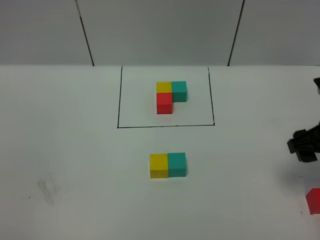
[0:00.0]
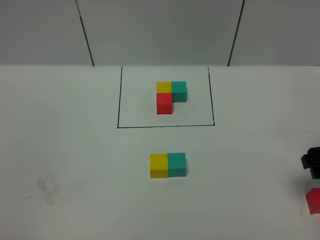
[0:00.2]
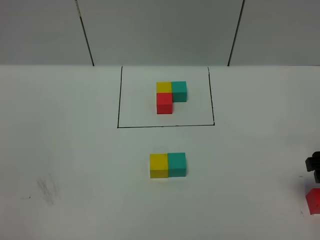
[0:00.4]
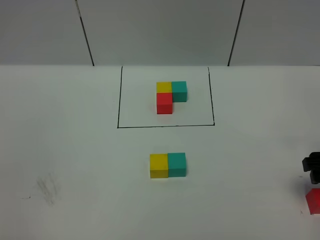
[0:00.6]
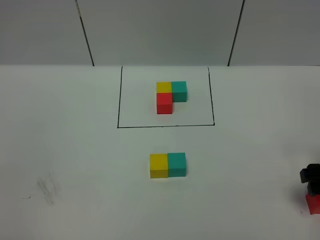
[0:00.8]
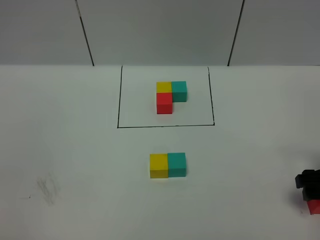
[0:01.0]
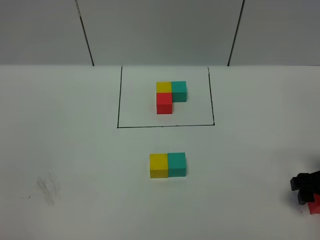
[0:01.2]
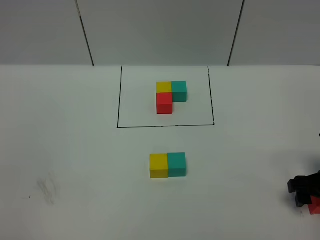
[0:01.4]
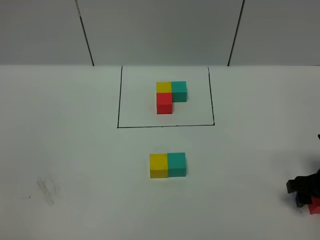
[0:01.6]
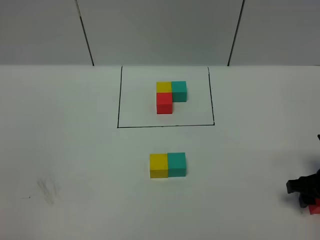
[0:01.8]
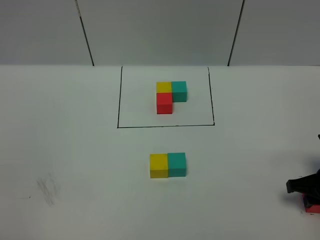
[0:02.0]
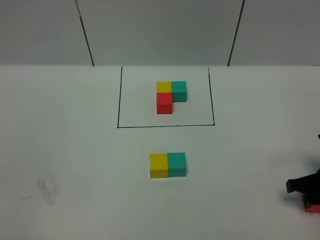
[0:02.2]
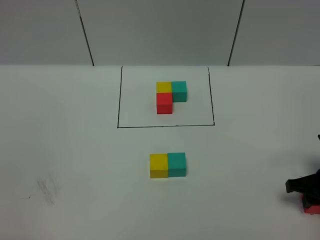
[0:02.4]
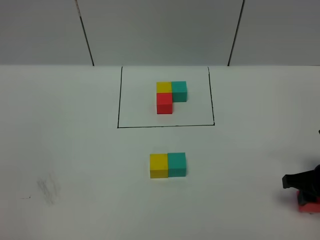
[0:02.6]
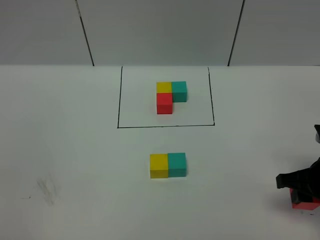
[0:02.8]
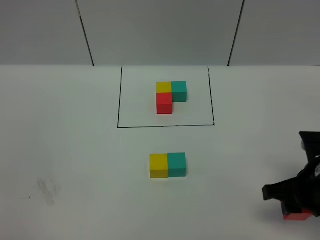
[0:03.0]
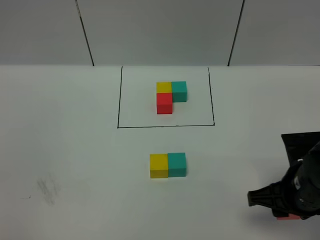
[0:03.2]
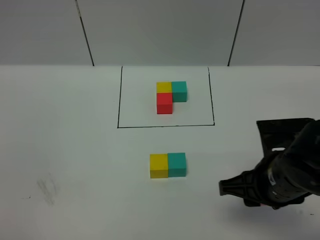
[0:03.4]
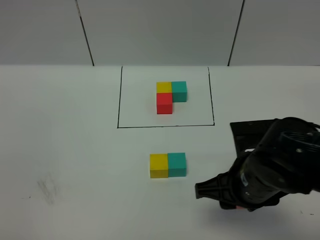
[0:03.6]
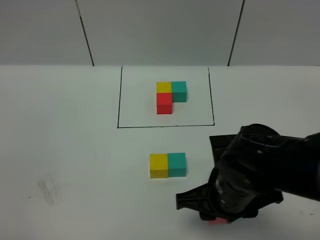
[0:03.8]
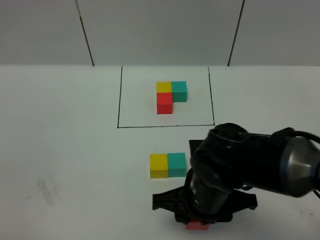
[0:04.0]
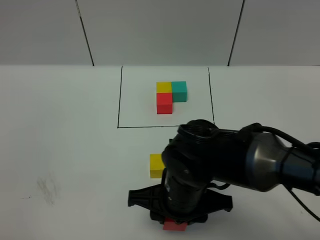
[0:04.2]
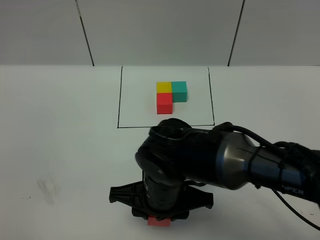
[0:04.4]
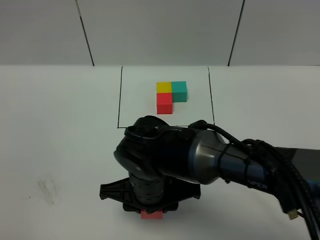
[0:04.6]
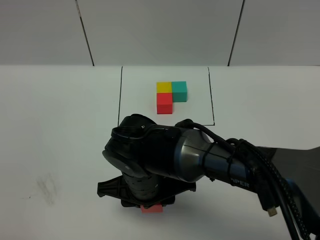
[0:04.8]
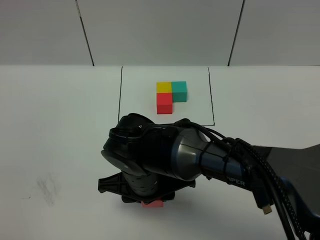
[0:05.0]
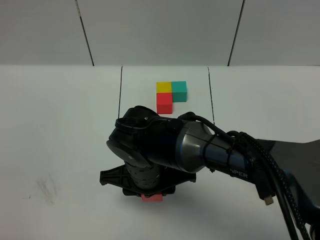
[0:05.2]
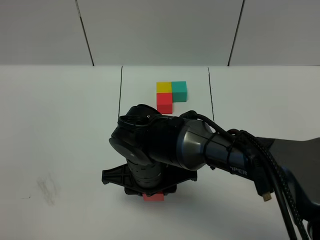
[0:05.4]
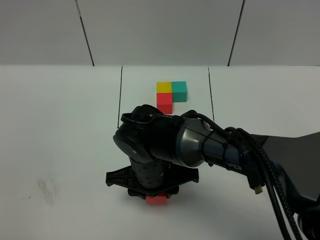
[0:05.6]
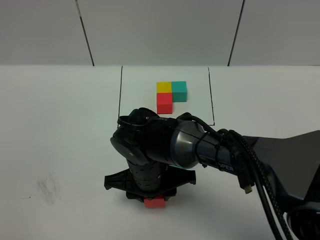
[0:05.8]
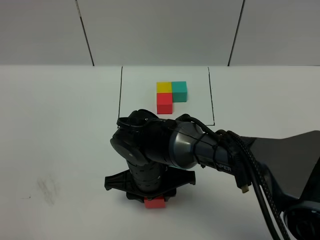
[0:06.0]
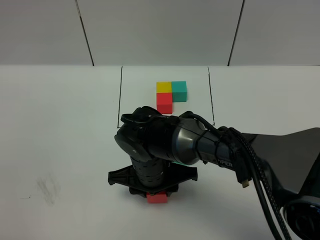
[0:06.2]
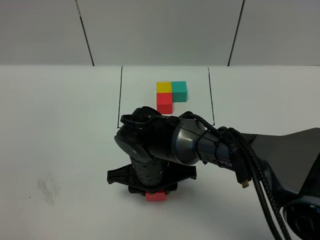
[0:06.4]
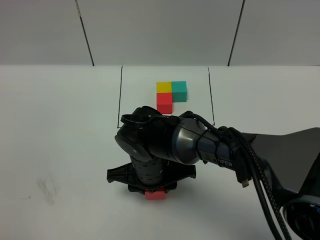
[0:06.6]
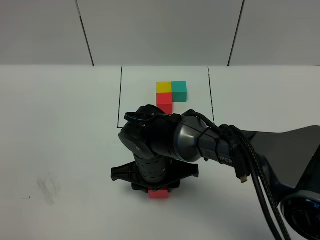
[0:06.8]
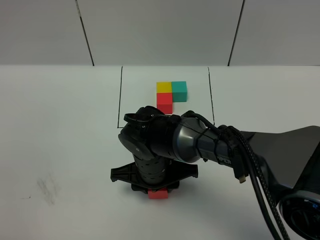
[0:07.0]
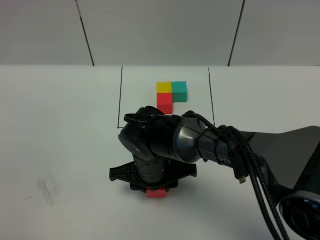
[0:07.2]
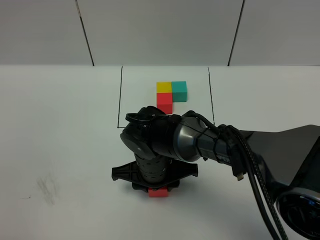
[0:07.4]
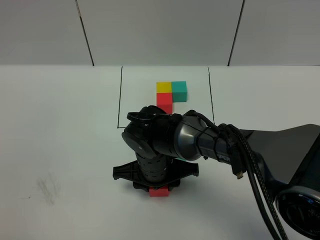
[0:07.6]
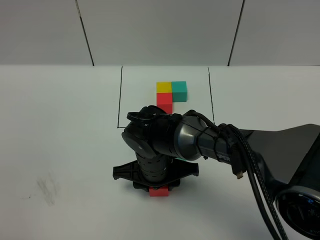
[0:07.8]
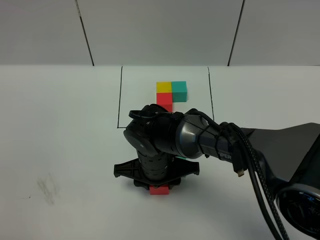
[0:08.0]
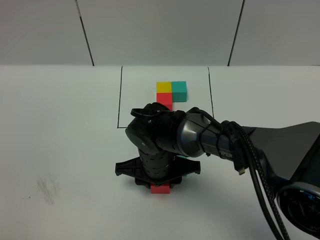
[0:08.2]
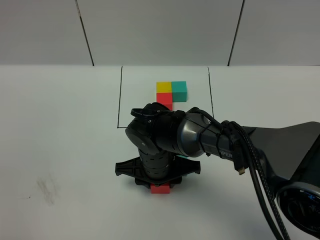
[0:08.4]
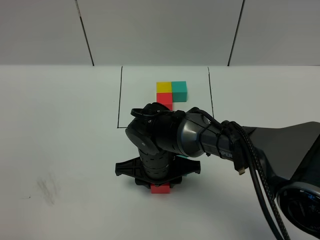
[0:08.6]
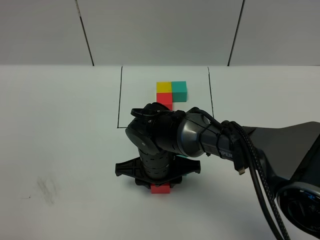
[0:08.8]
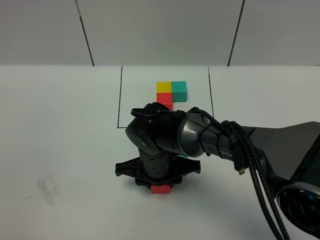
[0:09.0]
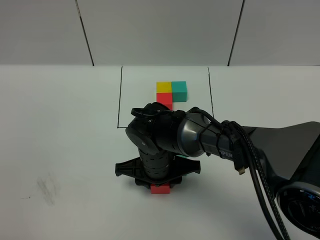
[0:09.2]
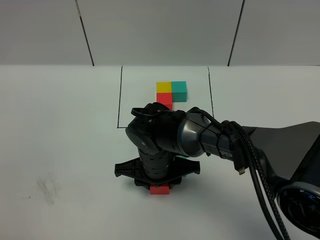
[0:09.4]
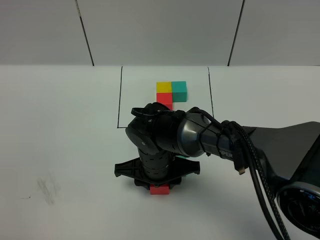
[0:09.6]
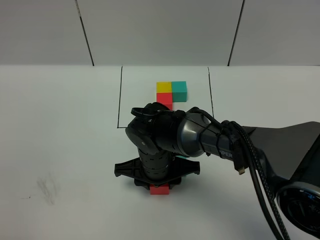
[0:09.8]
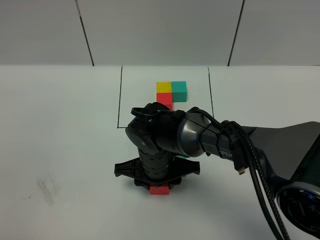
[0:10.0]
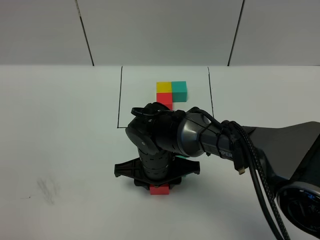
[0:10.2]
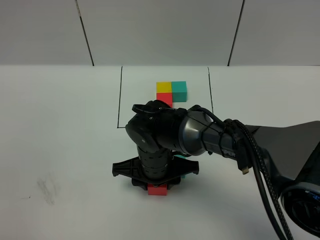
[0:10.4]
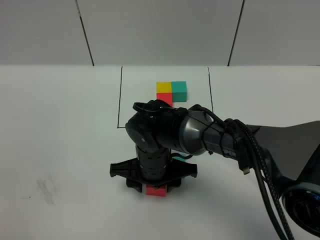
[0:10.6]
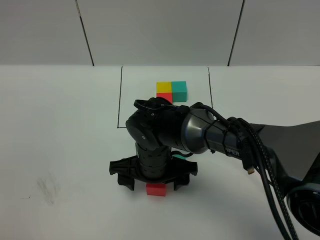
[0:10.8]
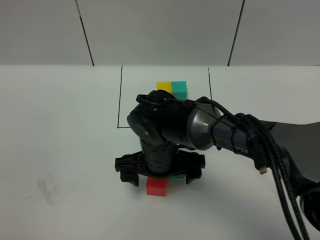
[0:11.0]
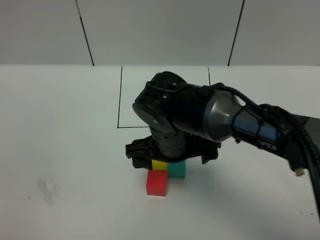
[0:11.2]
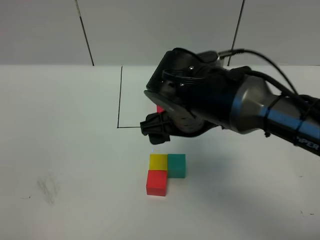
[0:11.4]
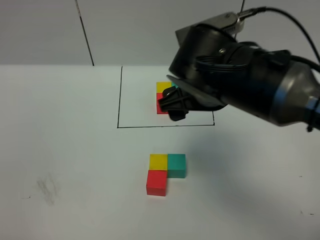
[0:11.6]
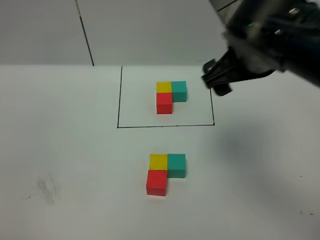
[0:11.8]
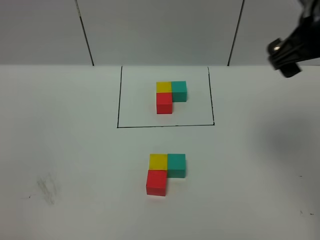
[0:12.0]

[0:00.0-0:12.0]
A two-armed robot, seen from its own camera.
Task of the whole recording: According to the building block template in front, assemble the scattered blocks together.
Step, 0:00.0 to 0:10.8: Put the red cube in the front of the yellow cube.
0:00.0 to 0:01.6: The right gripper goes roughly 10 cm downward.
0:01.6 to 0:03.0: The right gripper travels to the left and upward by some 10 cm, and closes its fingers.
0:03.0 to 0:04.4: The right gripper travels to the left by about 25 cm.
0:04.4 to 0:06.0: The right gripper shifts about 5 cm forward.
0:06.0 to 0:07.6: The grippers stay close to where they were, moving slightly.
0:07.6 to 0:10.4: Neither gripper changes place.
0:10.4 to 0:12.0: The right gripper moves upward and to the right, about 35 cm, and opens.
